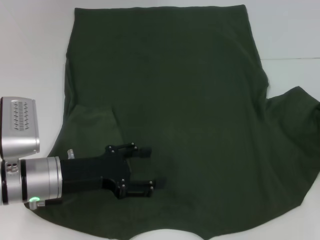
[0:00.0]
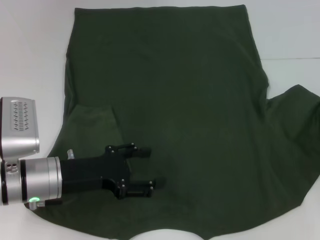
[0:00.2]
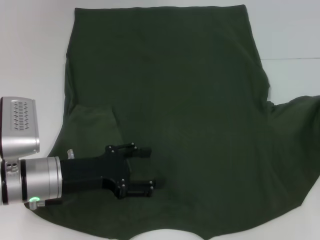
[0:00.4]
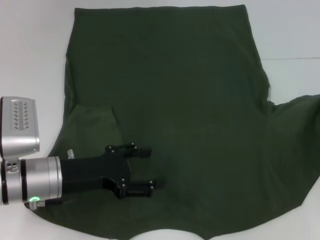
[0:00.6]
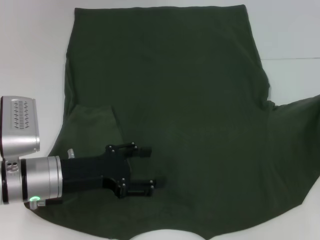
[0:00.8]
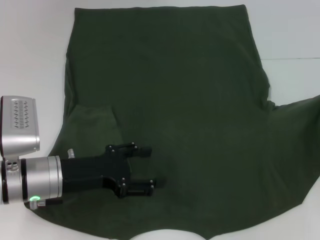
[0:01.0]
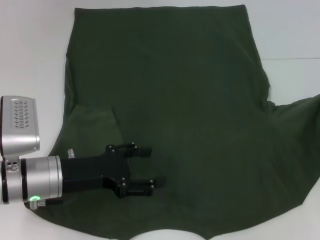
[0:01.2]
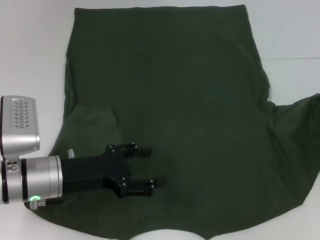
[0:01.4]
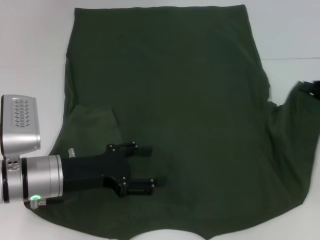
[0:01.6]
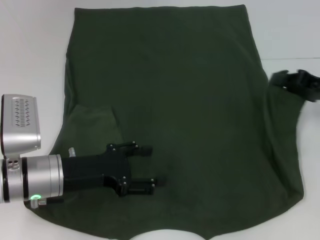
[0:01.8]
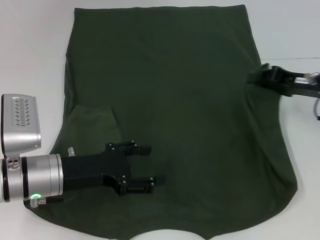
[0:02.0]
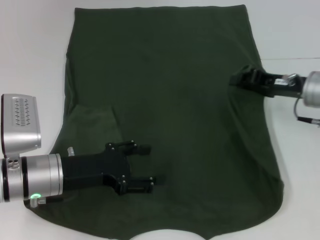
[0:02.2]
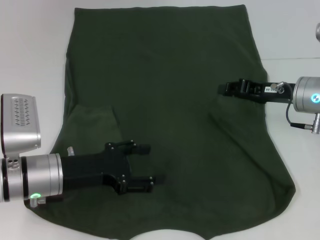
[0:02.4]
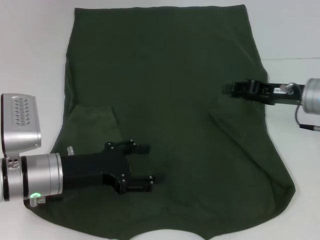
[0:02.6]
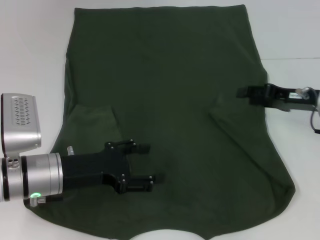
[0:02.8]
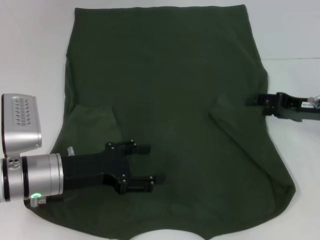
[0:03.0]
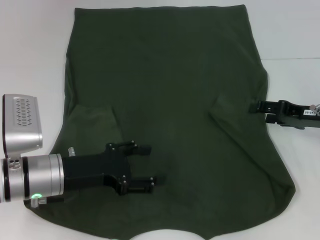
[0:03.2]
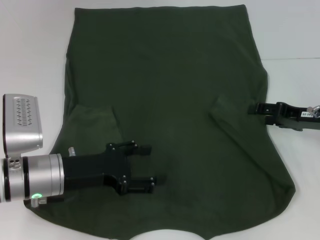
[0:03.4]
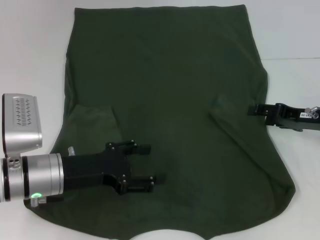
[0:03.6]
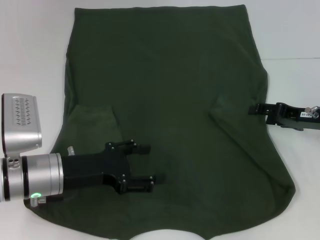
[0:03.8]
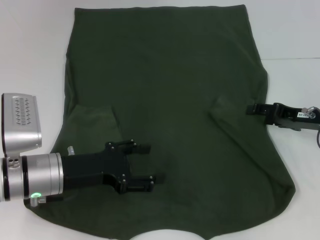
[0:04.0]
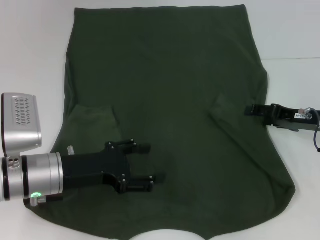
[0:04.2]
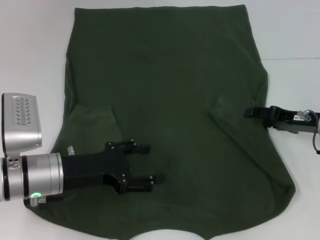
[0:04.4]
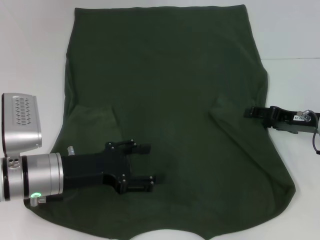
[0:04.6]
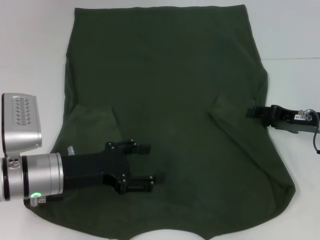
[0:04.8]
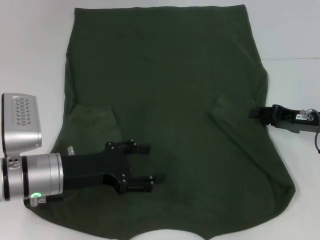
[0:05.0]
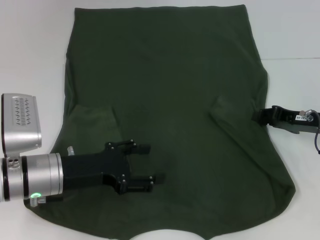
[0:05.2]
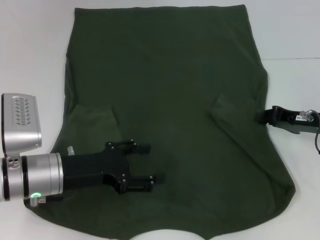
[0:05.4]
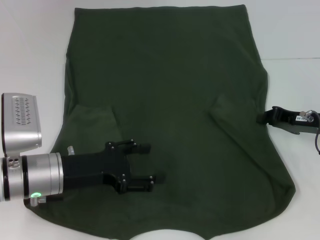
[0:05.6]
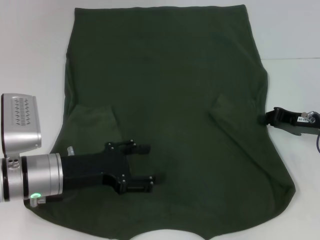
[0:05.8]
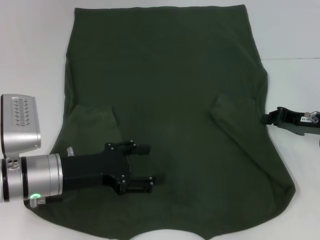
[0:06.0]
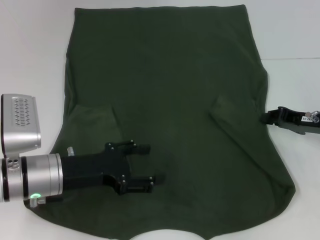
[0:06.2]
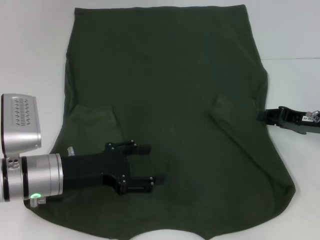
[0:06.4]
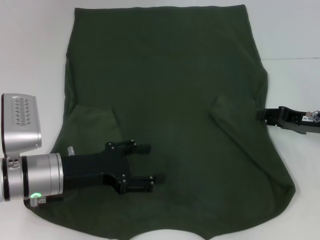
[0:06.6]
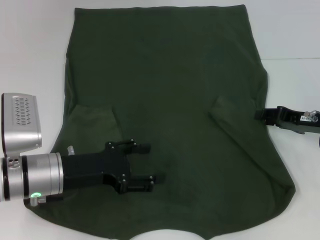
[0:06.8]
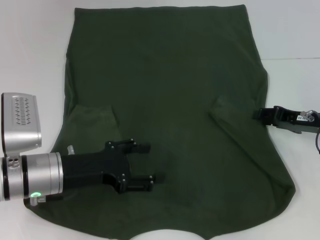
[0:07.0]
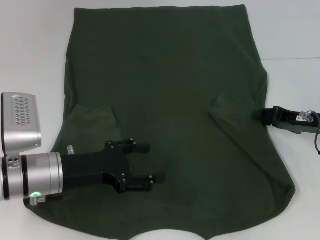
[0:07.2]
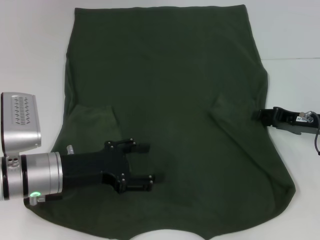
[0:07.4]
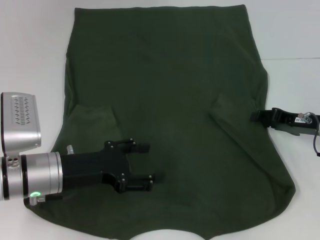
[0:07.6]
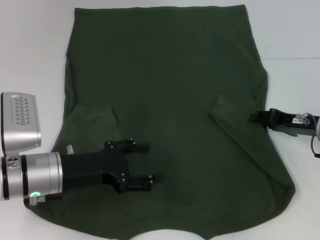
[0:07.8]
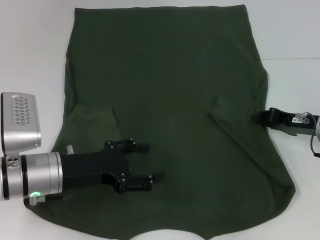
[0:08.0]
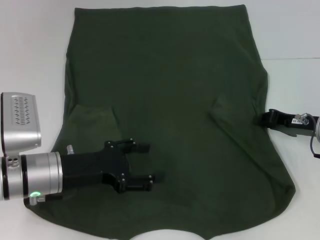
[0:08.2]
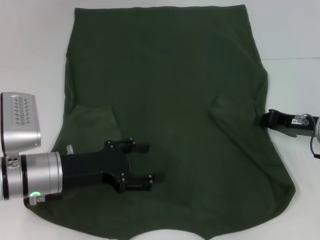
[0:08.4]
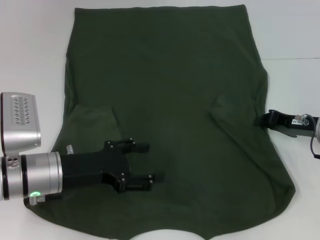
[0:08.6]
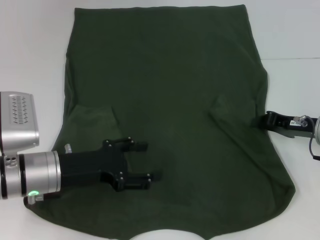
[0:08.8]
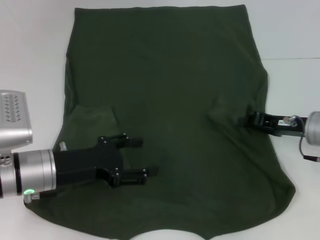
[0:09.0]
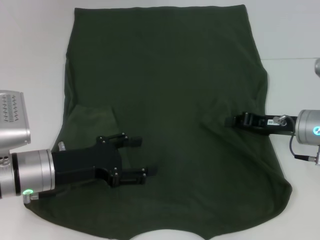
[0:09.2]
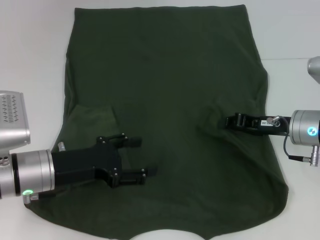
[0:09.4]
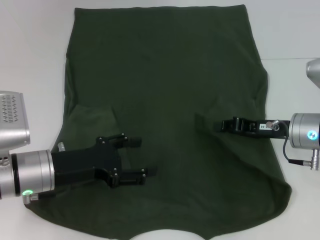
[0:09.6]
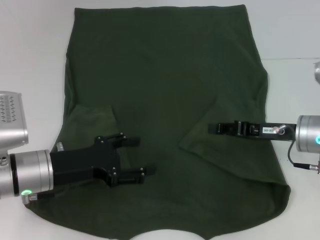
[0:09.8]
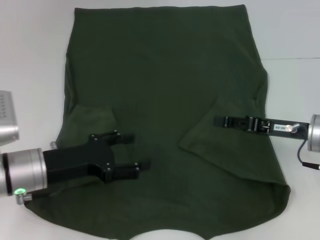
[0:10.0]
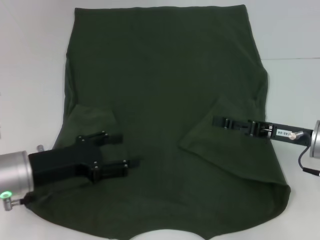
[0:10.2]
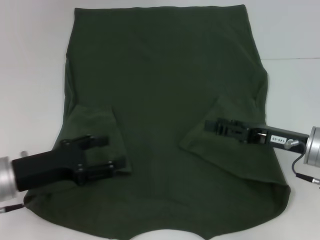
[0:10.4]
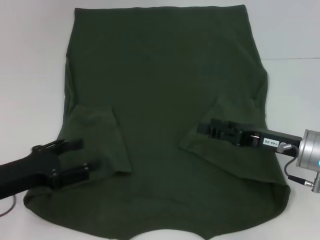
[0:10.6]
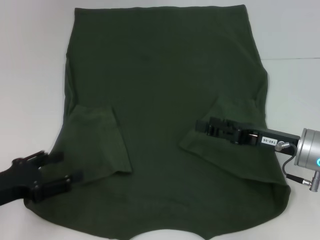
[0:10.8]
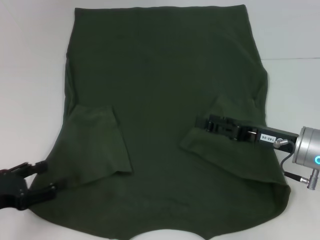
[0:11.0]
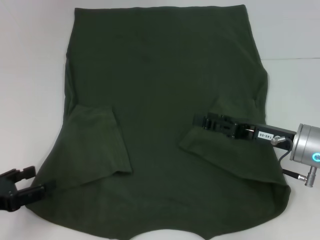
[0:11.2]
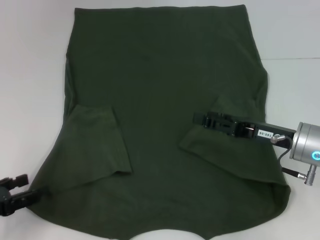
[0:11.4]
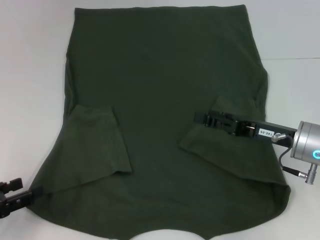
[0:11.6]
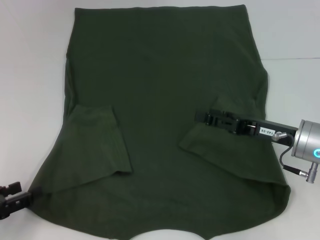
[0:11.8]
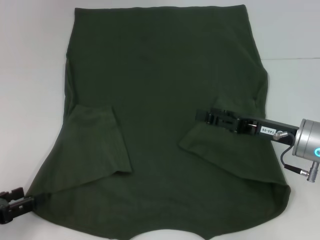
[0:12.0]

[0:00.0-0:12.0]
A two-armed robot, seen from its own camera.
Step, 0.0 to 9.6 s: Fold the bottom right sleeve with your right hand.
0.0 to 1.6 s: The grippers move only a little.
1.6 to 3.0 s: The right gripper is displaced to the left by roughly 5 cm, and opens its fingers.
3.0 to 4.4 s: The grippers stay close to where they were, moving slightly.
4.4 to 6.0 s: The right gripper closes its fingers.
6.0 to 7.6 s: The right gripper opens up.
7.6 to 9.0 s: The right gripper closes its fingers.
9.0 to 10.4 s: The right gripper changes place by some 5 cm, and opens its fingers. The left gripper moves about 5 cm.
10.4 to 12.0 s: The left gripper travels to the left and backward by some 10 cm.

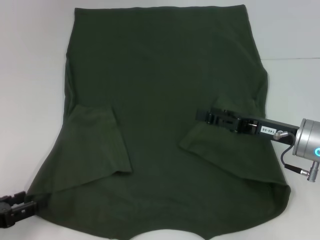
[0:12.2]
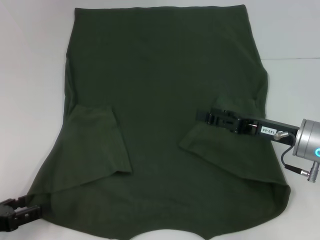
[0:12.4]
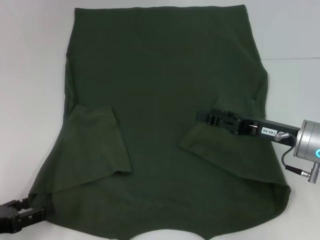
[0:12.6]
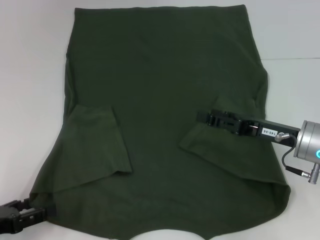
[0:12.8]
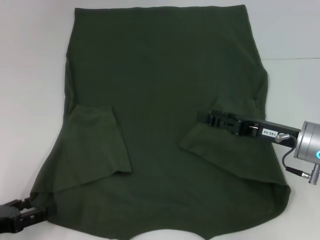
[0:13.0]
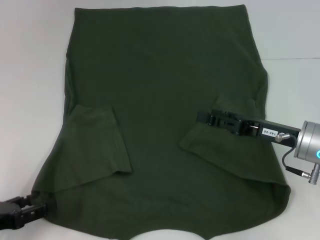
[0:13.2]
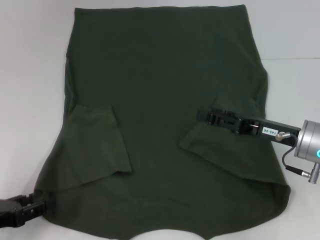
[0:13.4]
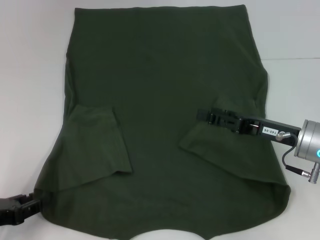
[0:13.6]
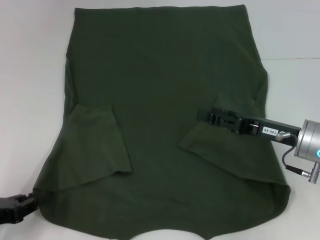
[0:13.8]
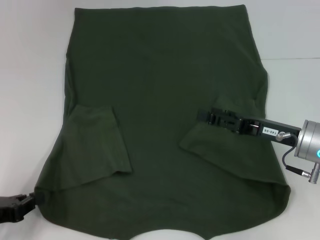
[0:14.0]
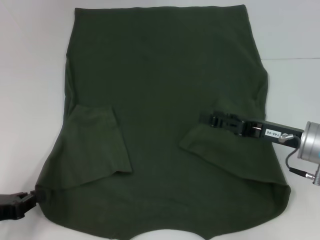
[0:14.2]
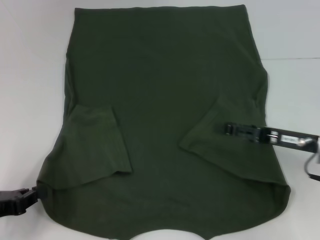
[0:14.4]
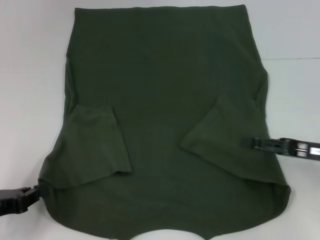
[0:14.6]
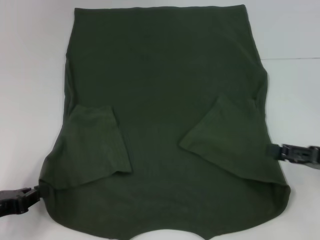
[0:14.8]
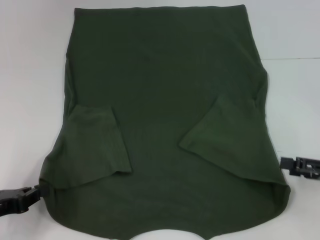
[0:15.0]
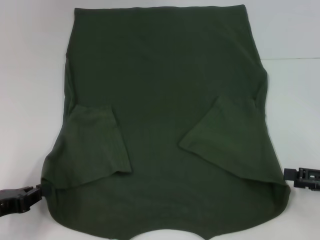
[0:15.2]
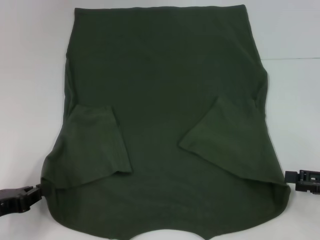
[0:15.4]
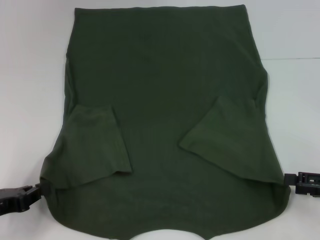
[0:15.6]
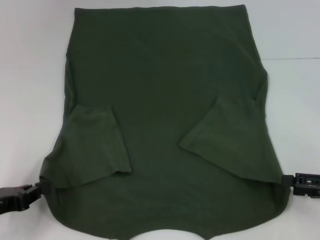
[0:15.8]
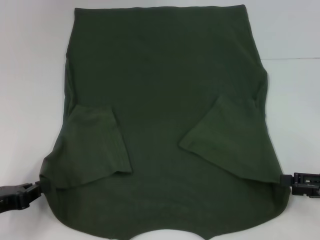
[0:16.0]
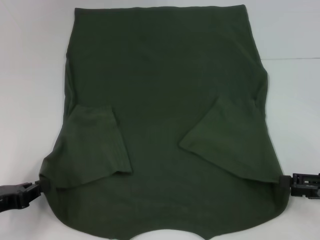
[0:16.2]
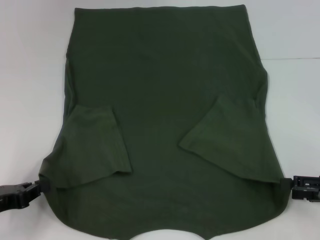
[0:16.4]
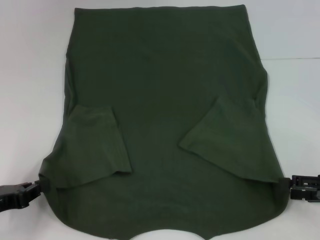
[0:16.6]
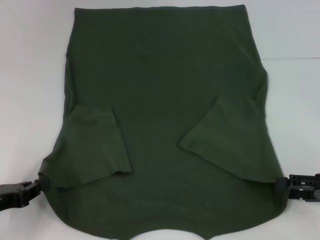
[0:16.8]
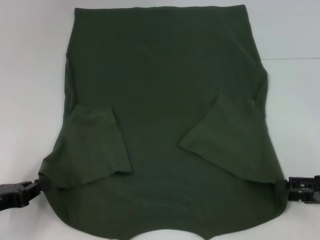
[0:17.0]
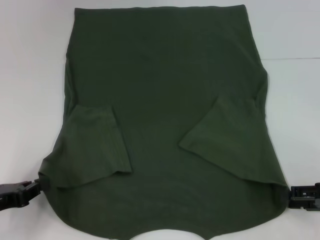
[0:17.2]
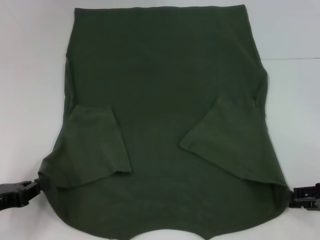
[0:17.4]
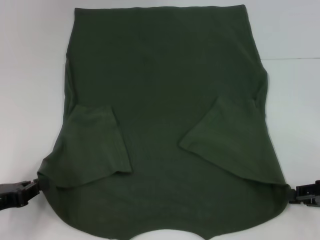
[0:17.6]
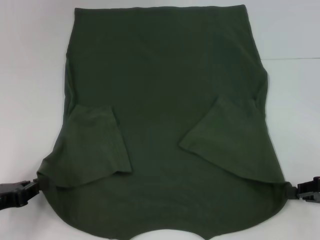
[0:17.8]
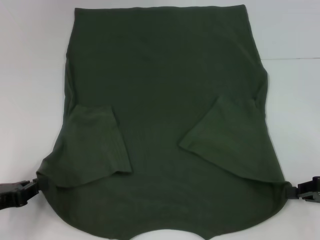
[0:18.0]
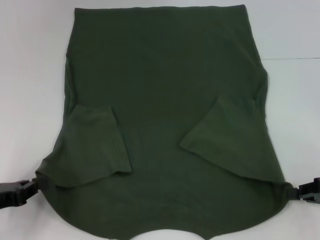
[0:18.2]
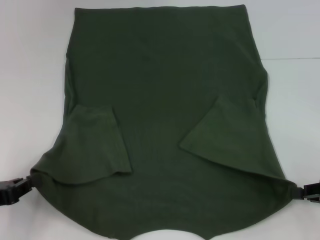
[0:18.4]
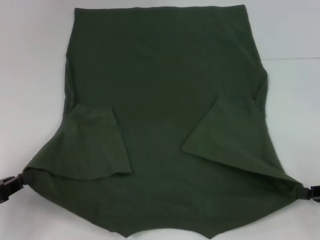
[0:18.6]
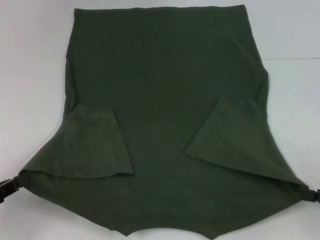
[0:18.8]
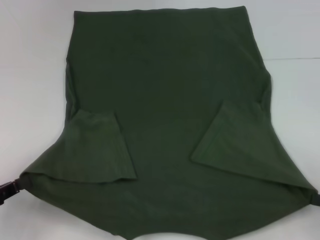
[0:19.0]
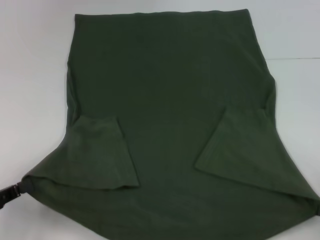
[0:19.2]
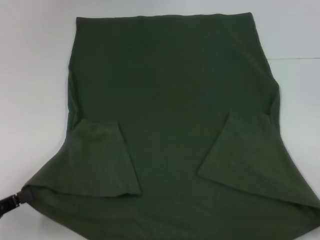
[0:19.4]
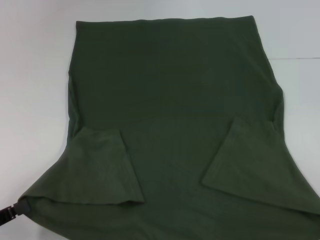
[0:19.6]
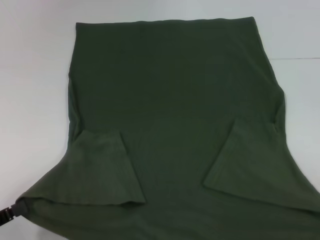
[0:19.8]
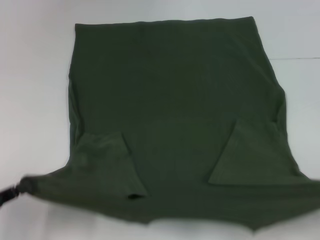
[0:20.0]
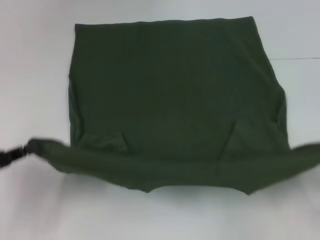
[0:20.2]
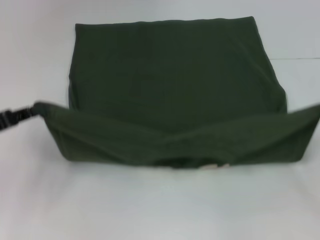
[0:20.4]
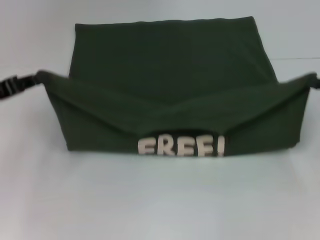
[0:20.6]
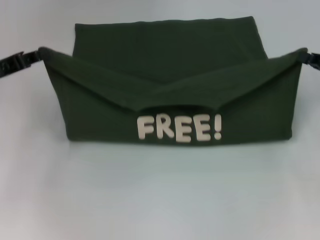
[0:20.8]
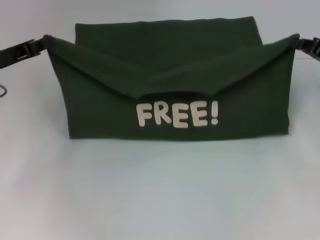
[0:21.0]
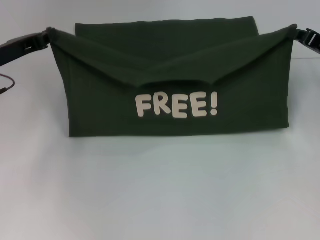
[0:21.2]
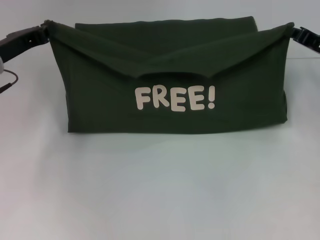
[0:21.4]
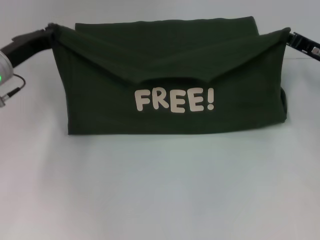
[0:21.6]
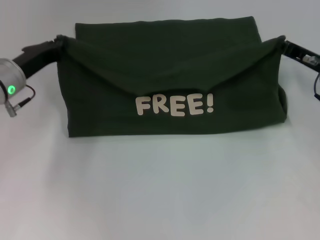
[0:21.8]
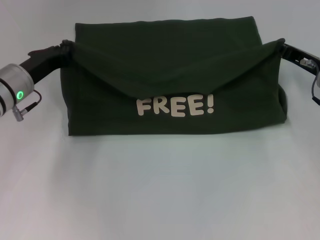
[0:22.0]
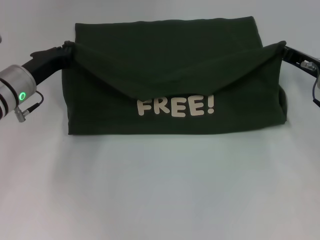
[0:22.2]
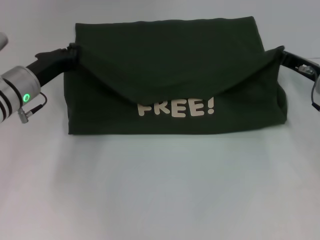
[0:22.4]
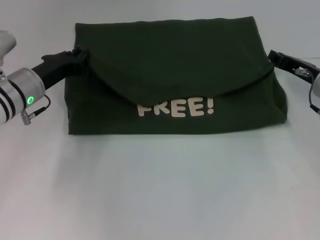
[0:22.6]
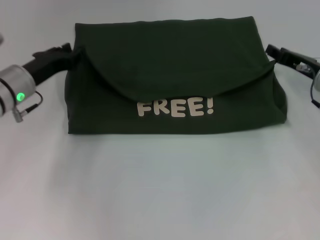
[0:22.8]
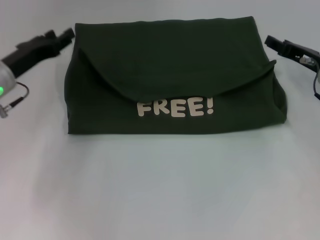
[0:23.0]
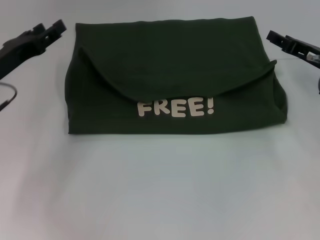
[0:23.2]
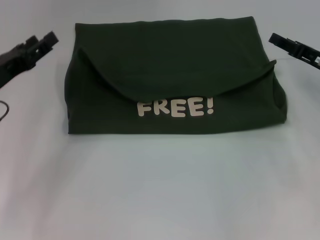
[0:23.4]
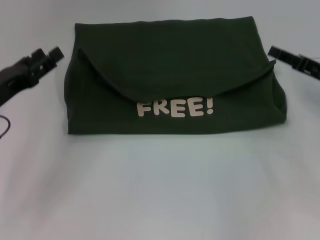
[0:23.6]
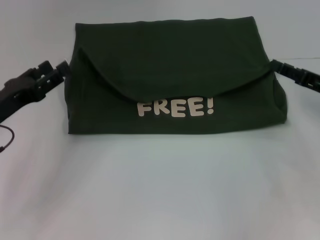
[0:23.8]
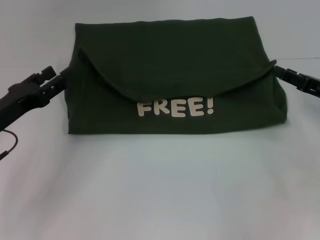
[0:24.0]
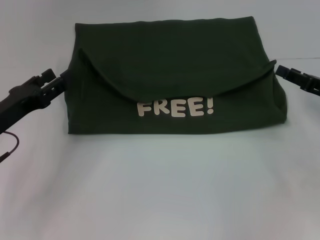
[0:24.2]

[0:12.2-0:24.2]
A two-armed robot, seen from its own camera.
Step, 12.2 to 14.8 s: Grab the bottom left corner with your left hand.
Step, 15.0 to 18.2 s: Grab the bottom right corner with your right hand.
Step, 18.4 to 22.6 s: Fold the clothes with your left hand.
Step, 18.4 to 22.6 s: Fold the clothes with your right hand.
12.2 to 13.8 s: The left gripper closes its fingers.
13.8 to 15.2 s: The left gripper closes. Meanwhile the right gripper travels to the right and backward by some 15 cm.
15.2 to 16.6 s: The grippers make only small movements.
16.6 to 18.2 s: The right gripper closes up.
18.2 to 19.8 s: The left gripper heads backward, covering roughly 5 cm. The right gripper shifts approximately 10 cm backward.
19.8 to 21.2 s: Both grippers travel together forward, about 25 cm.
21.2 to 22.6 s: The right gripper changes place by some 5 cm, while the left gripper travels to the right by about 5 cm.
22.6 to 24.2 s: The right gripper heads backward, covering roughly 5 cm, and opens up. Meanwhile the left gripper is displaced backward and to the left by approximately 10 cm, and opens its fingers.
